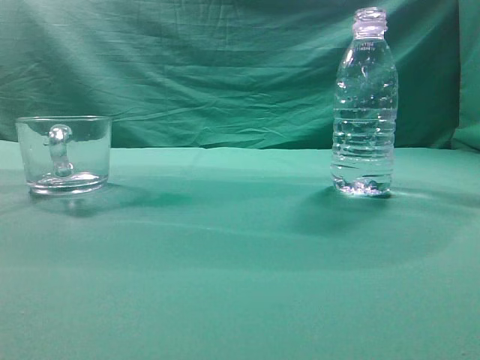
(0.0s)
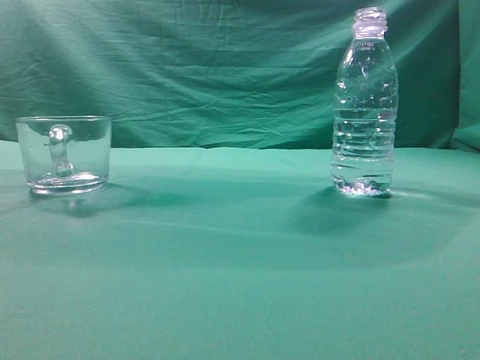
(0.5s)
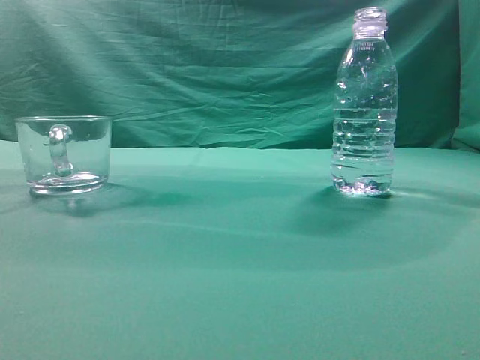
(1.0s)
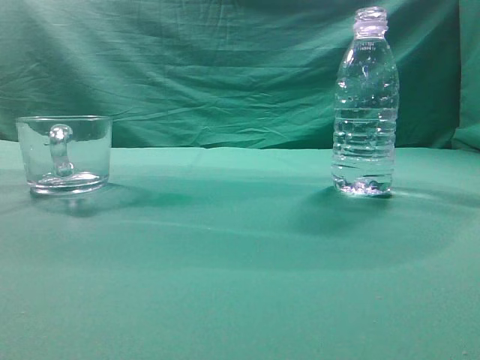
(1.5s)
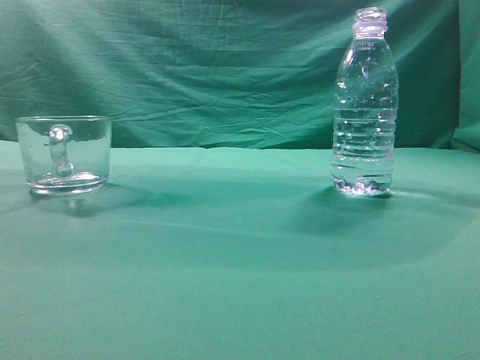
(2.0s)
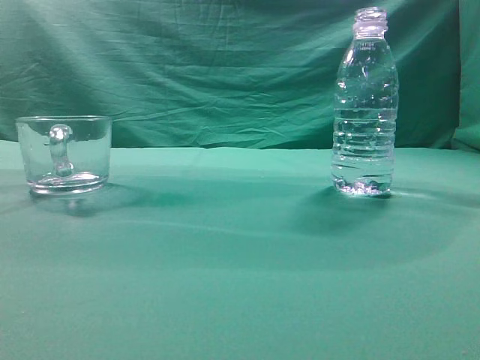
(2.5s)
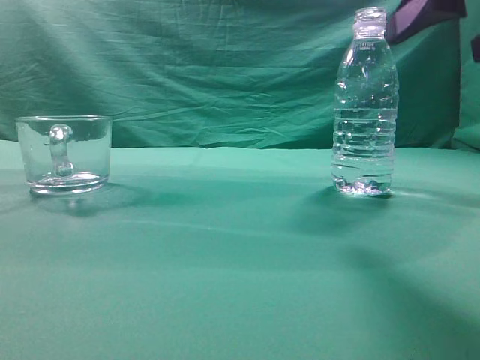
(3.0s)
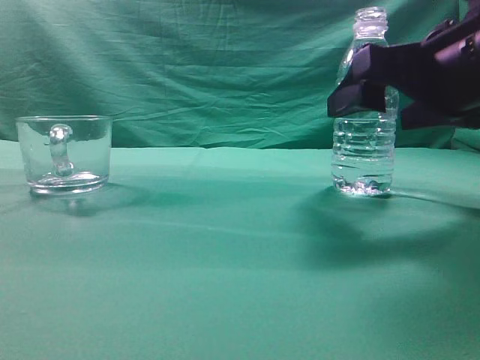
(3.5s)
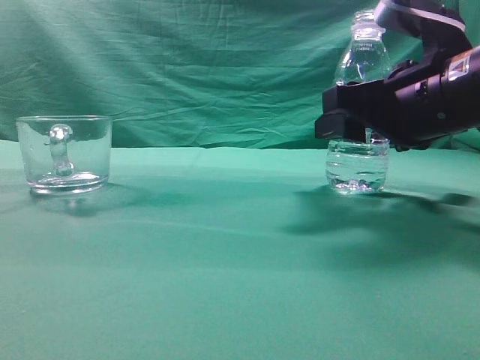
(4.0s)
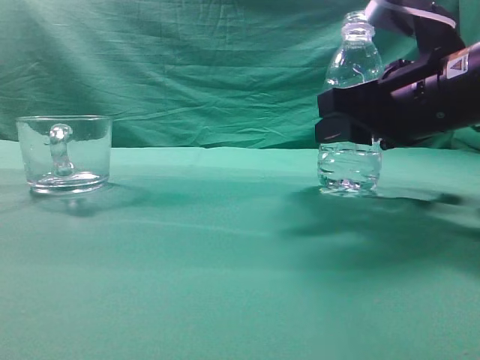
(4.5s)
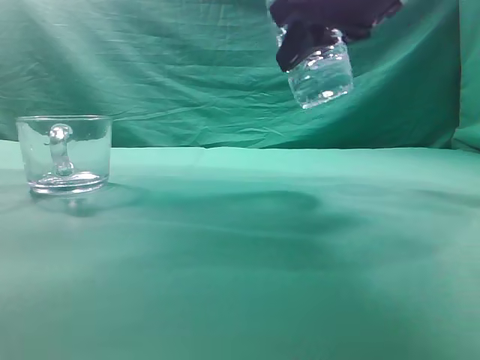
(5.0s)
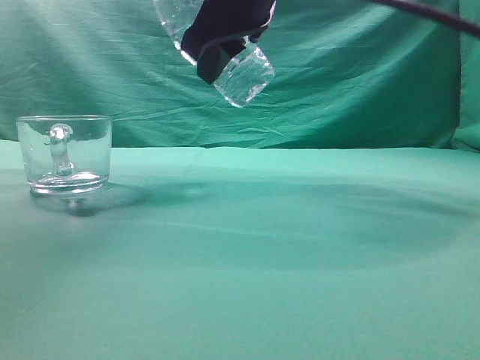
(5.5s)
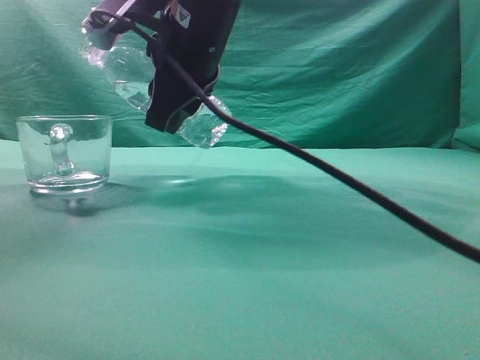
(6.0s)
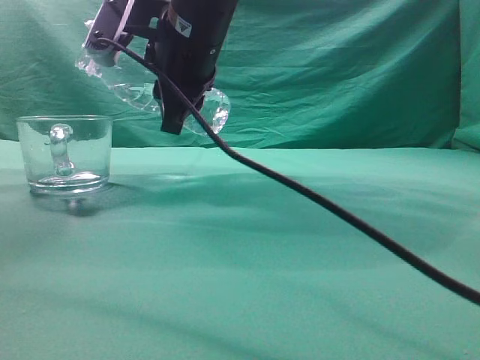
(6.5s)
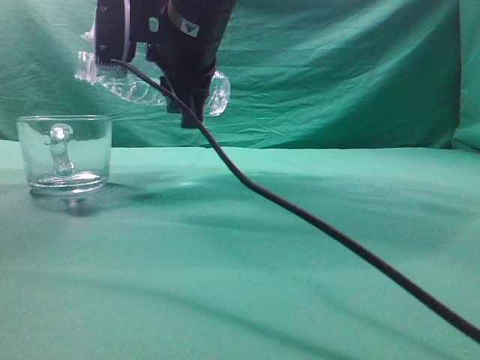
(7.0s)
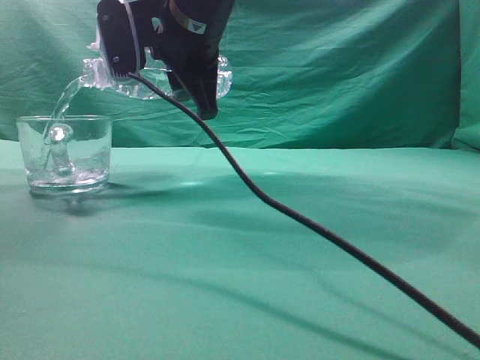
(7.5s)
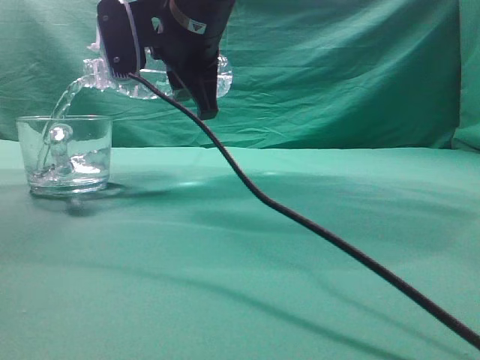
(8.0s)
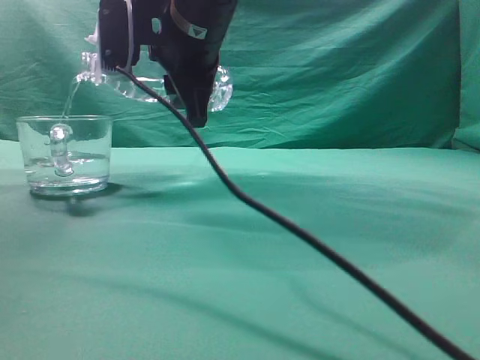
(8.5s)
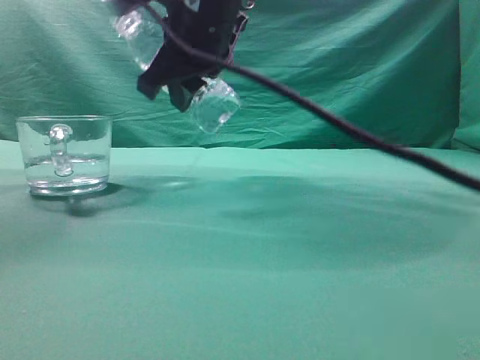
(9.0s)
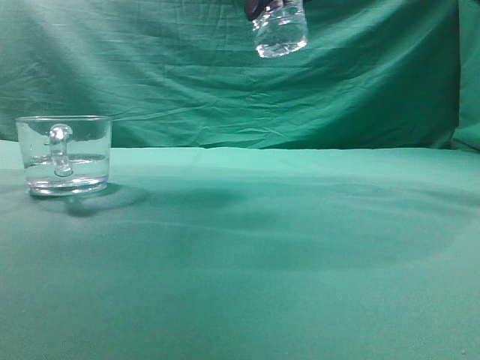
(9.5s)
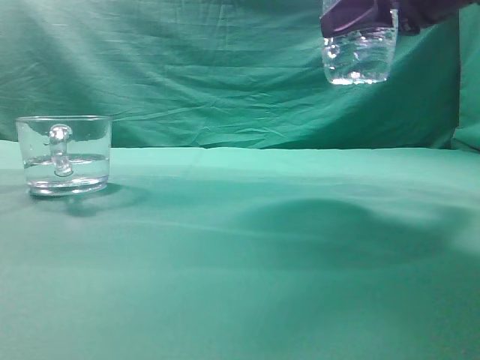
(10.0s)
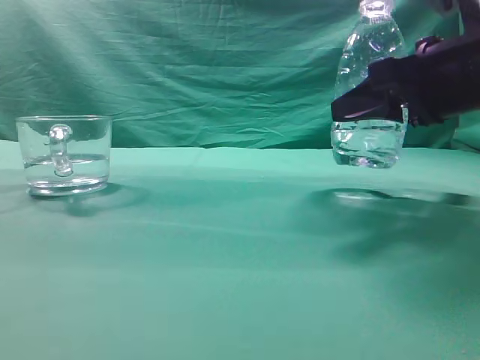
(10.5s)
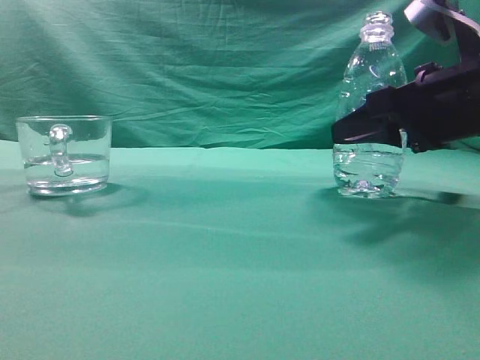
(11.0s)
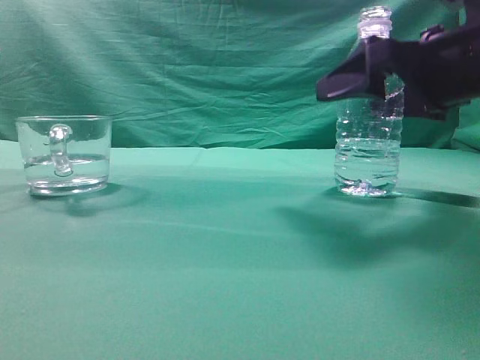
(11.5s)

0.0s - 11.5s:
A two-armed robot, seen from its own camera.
Task of the whole recording: pick up the water bottle and pour the water in it into the glass.
Step, 0.0s - 4.5s: Grasp the mineral water bottle.
Step, 5.0s - 9.0s: Pour water into the teacup.
2.0s - 4.0s: The right gripper shifts some 30 cm forward, downward and to the left, and opens its fingers.
4.0s - 6.0s: The right gripper is displaced to the left by some 20 cm.
7.5s - 9.5s: The right gripper moves to the right and upward, approximately 15 cm.
9.5s - 11.5s: The right gripper is displaced downward and to the right by some 20 cm, and opens its fingers.

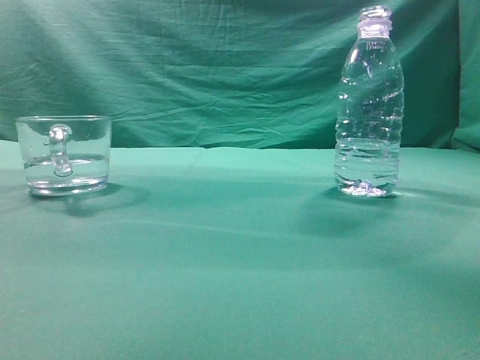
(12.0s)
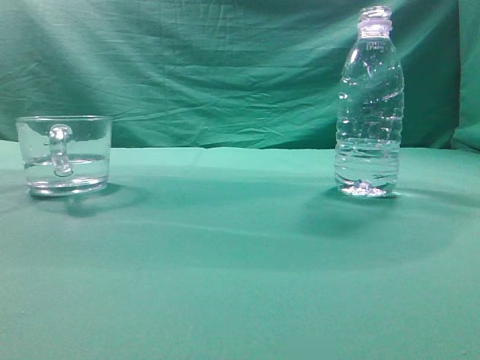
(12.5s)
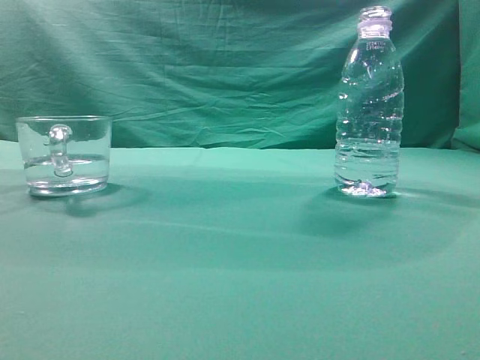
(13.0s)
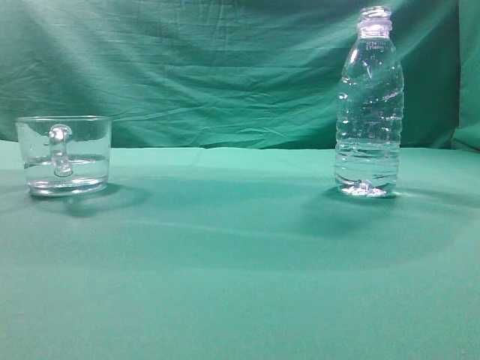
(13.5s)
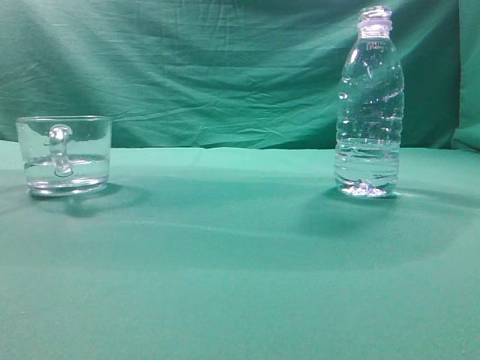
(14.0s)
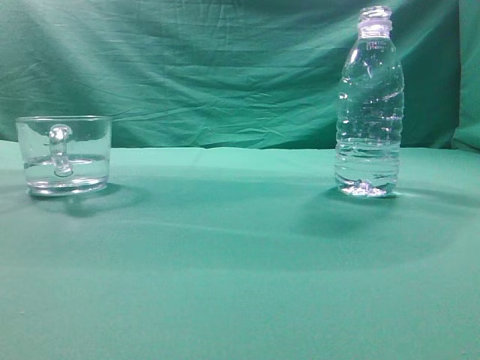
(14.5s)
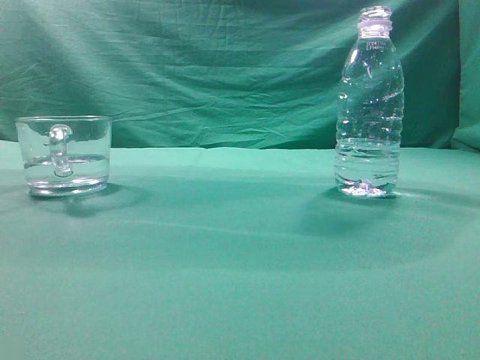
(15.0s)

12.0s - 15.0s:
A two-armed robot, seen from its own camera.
Task of the whole recording: pick up the water bottle and pour the water in it into the glass.
12.0s - 13.5s: The right gripper is displaced backward and upward by about 25 cm, and closes up.

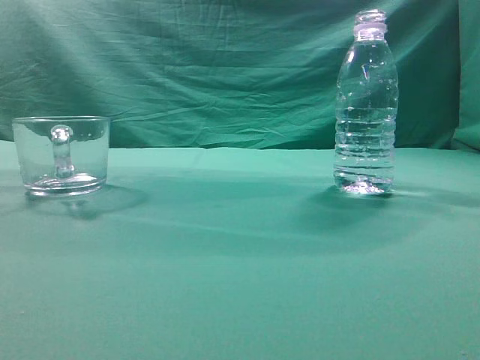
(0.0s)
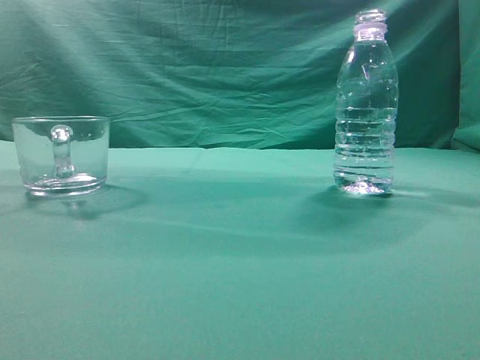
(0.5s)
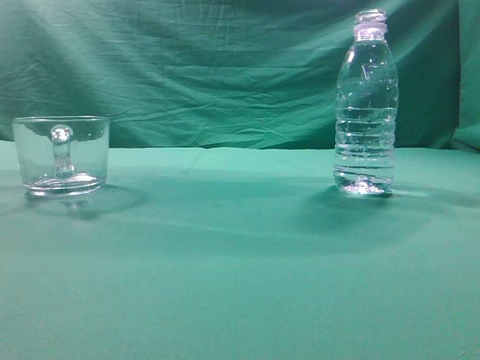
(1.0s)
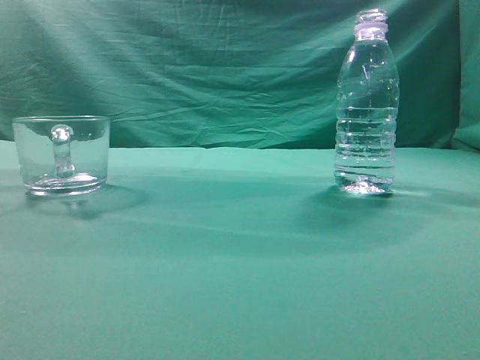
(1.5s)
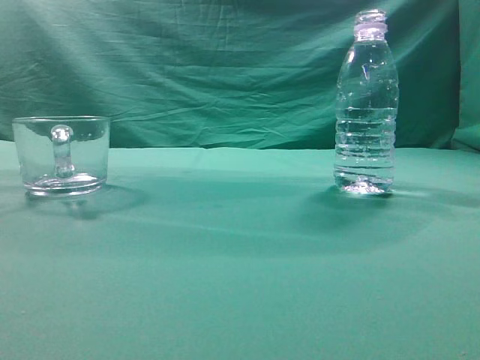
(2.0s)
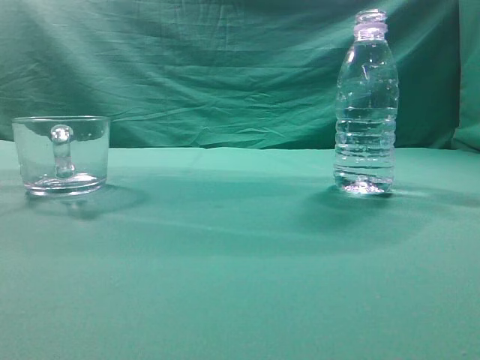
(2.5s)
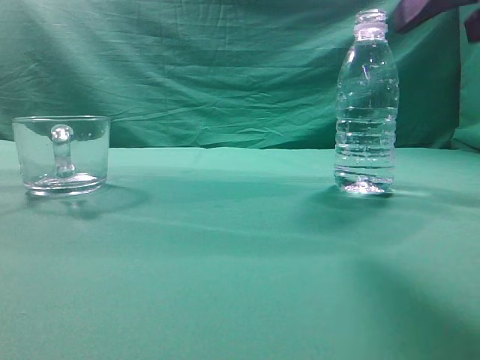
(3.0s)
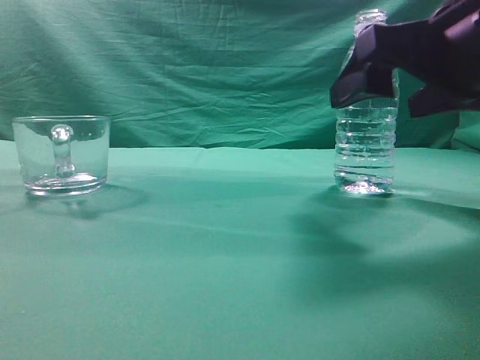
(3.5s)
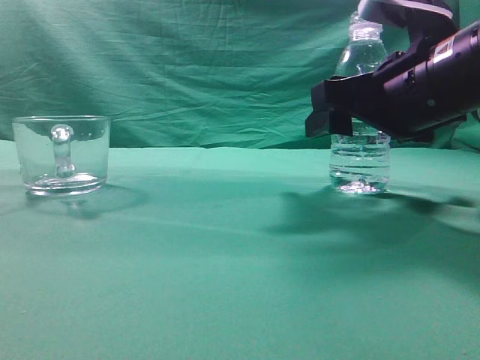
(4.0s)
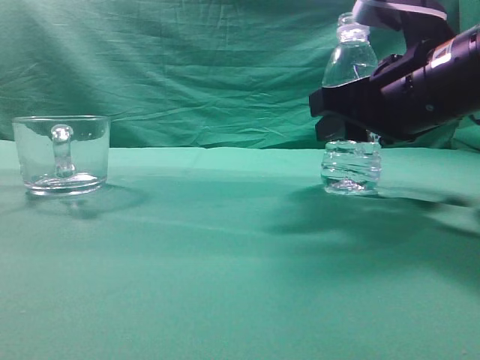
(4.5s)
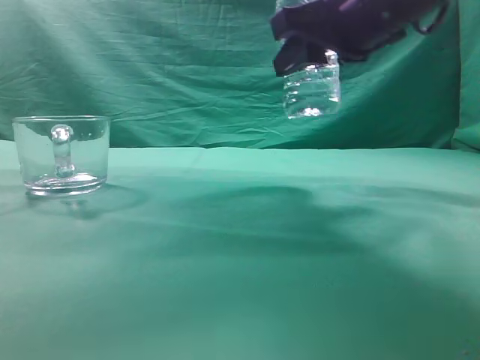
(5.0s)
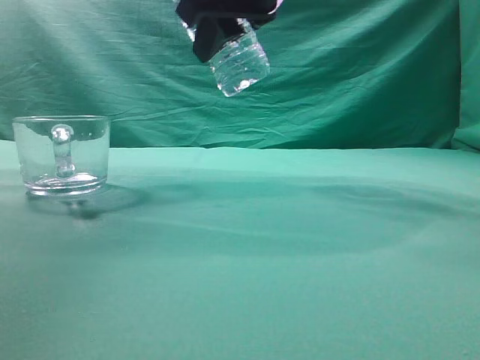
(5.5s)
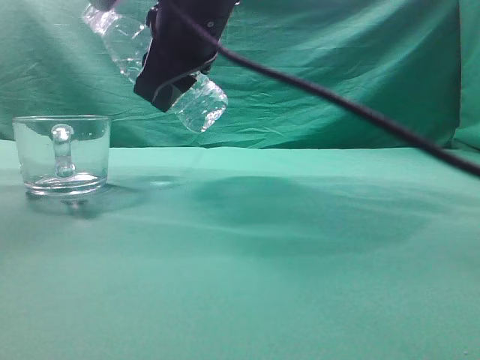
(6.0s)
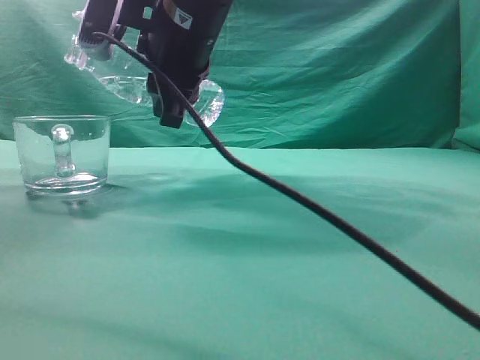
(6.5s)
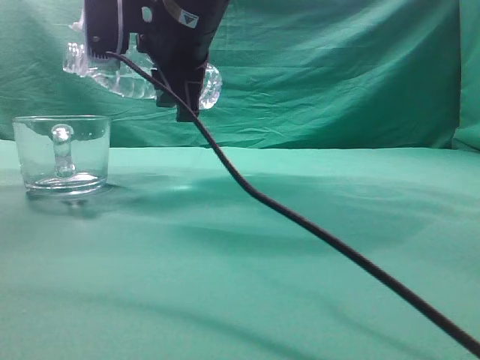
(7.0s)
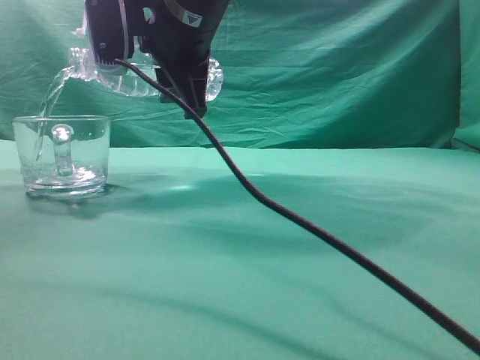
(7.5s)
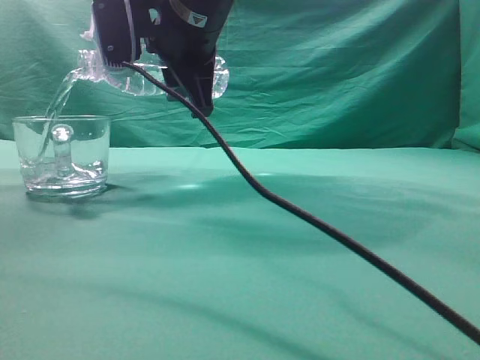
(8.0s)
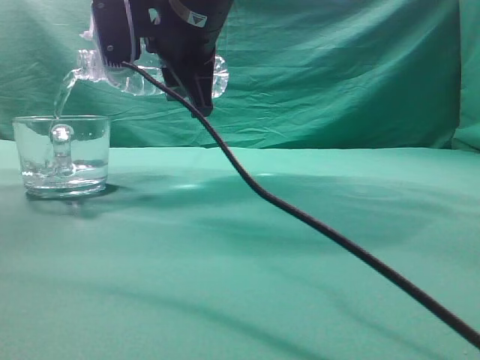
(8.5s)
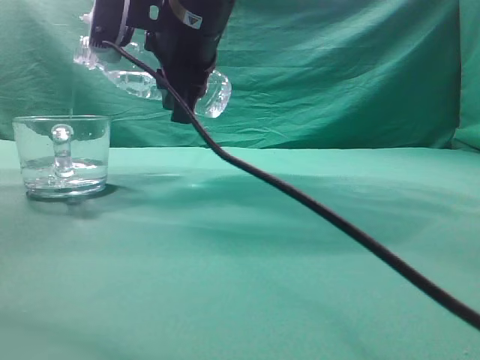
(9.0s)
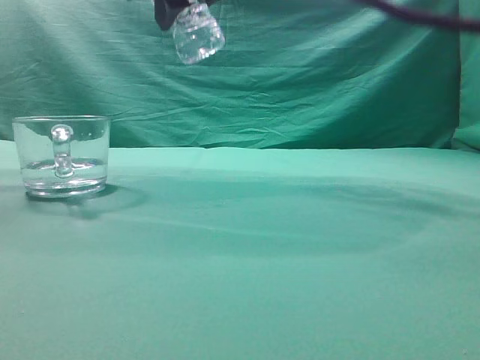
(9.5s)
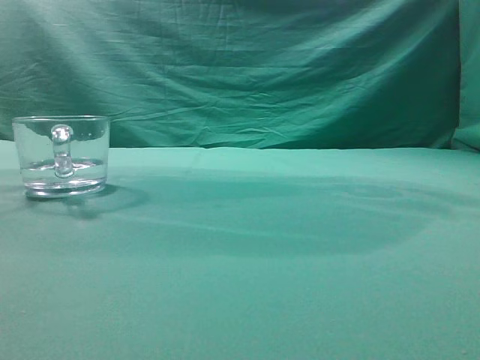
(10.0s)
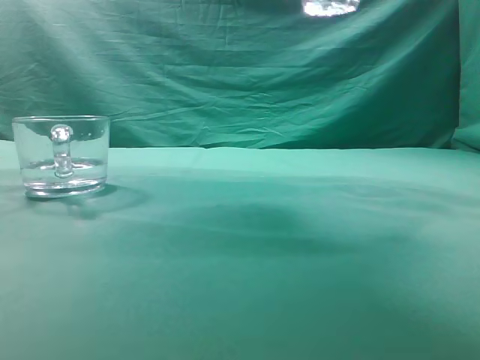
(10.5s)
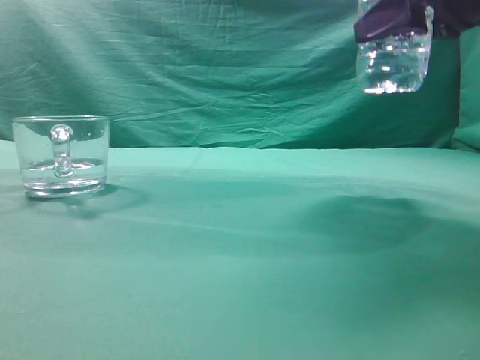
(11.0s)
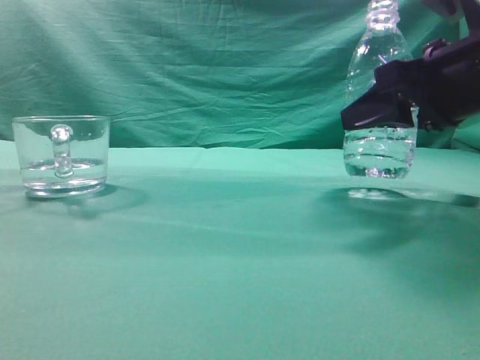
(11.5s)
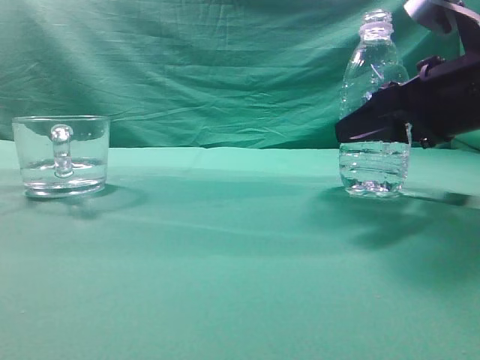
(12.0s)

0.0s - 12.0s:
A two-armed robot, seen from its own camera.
Task of the whole recording: pick up the water bottle and pour the water in it into the glass.
Step, 0.0s - 4.5s: Grasp the mineral water bottle.
Step, 5.0s - 9.0s: Pour water into the teacup.
2.0s - 4.0s: The right gripper travels forward, downward and to the left by some 30 cm, and opens up.
4.0s - 6.0s: The right gripper shifts roughly 20 cm to the left and upward.
8.0s - 10.0s: The right gripper moves upward and to the right, about 15 cm.
10.0s - 12.0s: The right gripper is displaced downward and to the right by some 30 cm.
